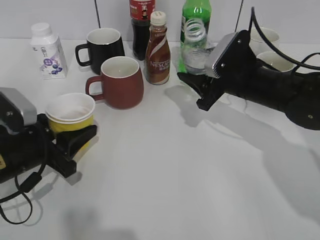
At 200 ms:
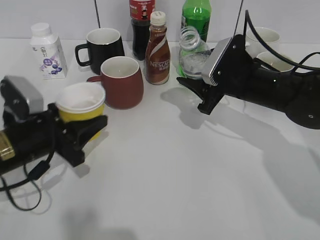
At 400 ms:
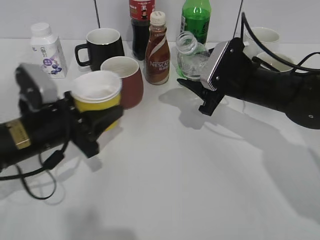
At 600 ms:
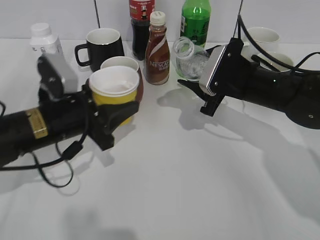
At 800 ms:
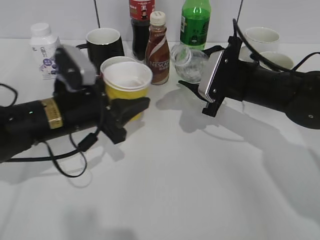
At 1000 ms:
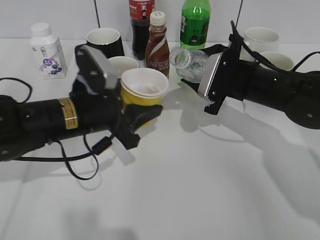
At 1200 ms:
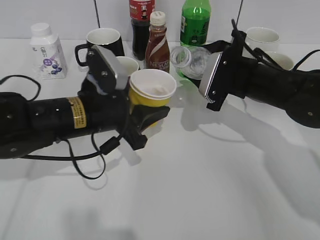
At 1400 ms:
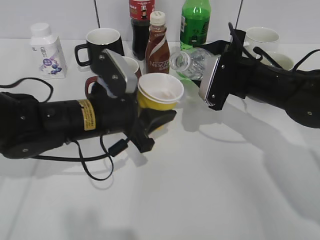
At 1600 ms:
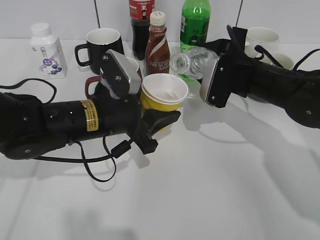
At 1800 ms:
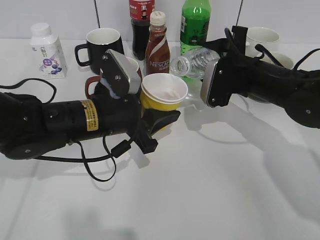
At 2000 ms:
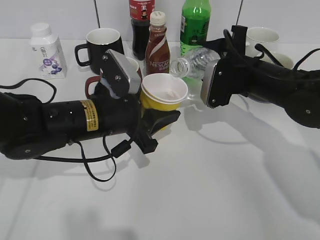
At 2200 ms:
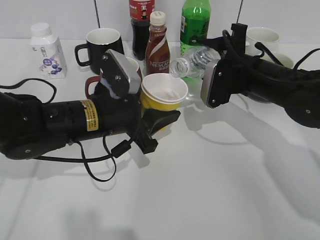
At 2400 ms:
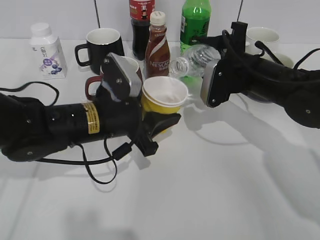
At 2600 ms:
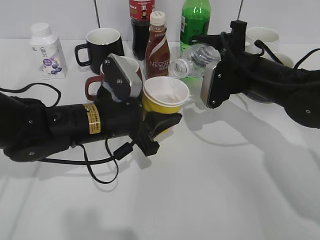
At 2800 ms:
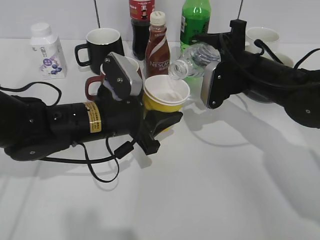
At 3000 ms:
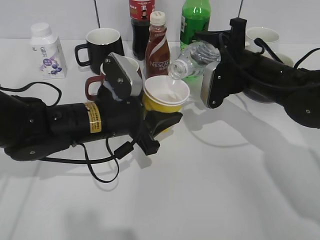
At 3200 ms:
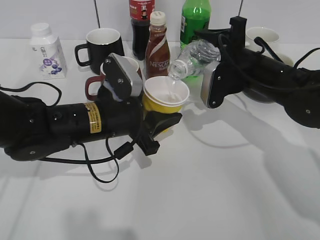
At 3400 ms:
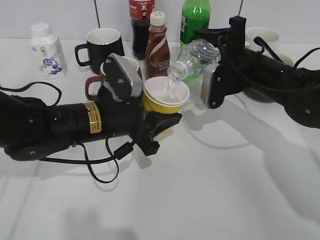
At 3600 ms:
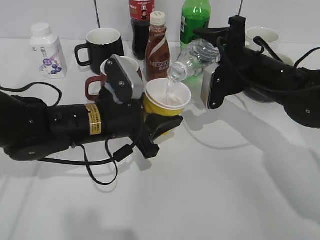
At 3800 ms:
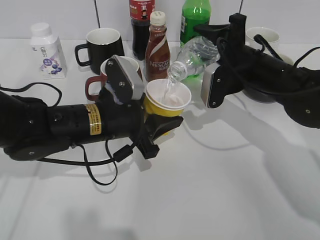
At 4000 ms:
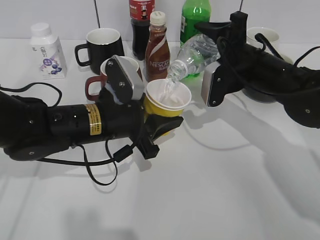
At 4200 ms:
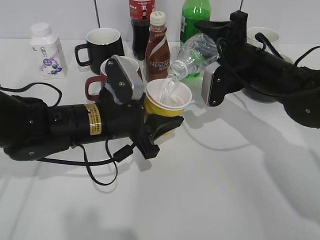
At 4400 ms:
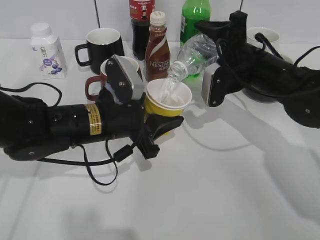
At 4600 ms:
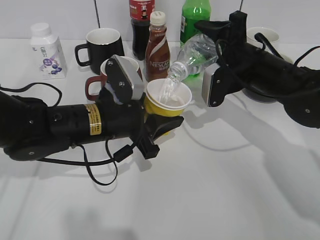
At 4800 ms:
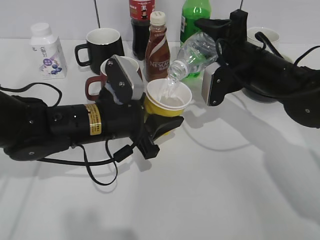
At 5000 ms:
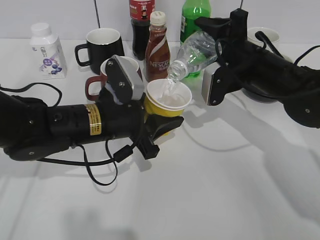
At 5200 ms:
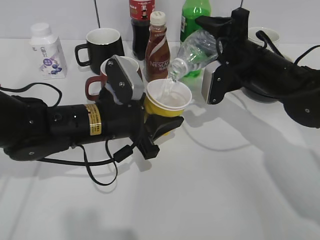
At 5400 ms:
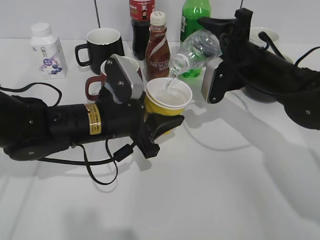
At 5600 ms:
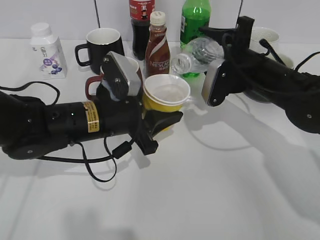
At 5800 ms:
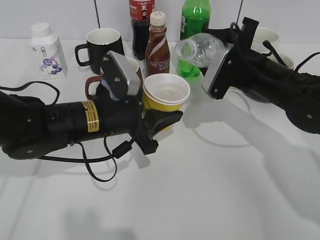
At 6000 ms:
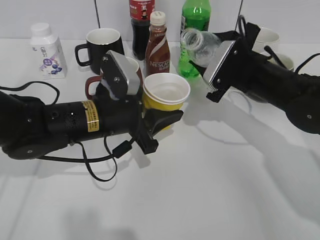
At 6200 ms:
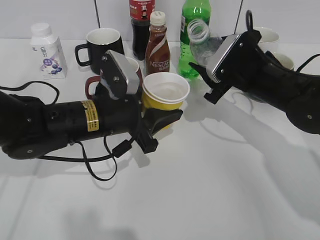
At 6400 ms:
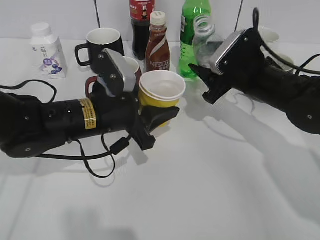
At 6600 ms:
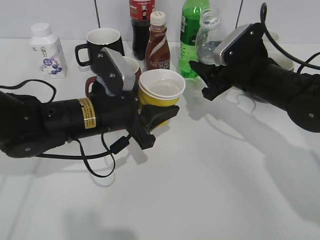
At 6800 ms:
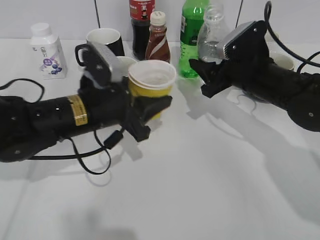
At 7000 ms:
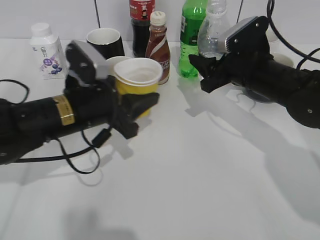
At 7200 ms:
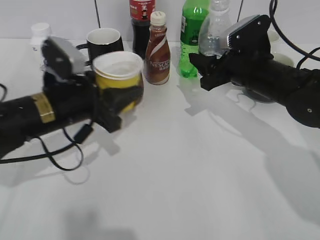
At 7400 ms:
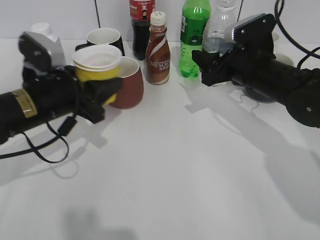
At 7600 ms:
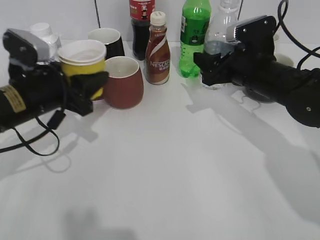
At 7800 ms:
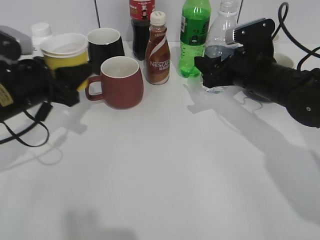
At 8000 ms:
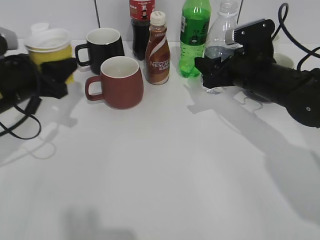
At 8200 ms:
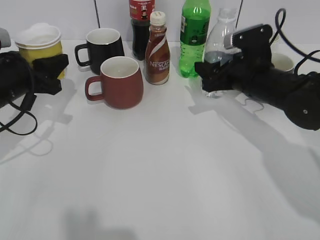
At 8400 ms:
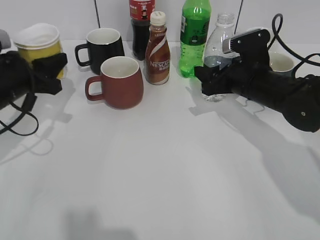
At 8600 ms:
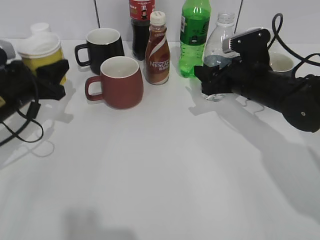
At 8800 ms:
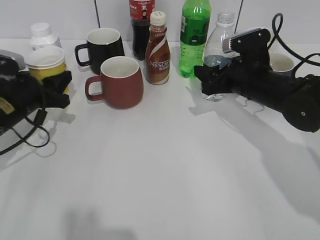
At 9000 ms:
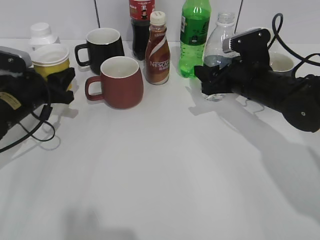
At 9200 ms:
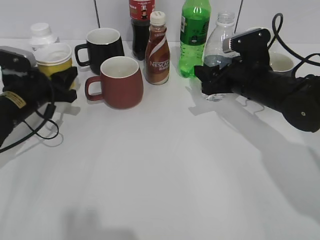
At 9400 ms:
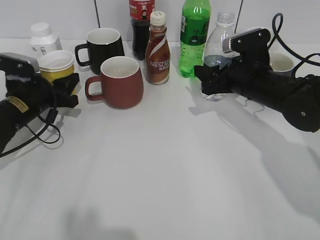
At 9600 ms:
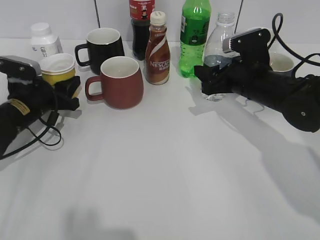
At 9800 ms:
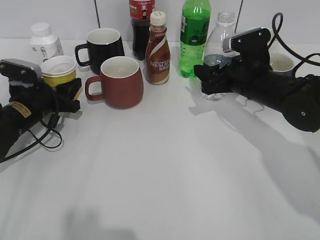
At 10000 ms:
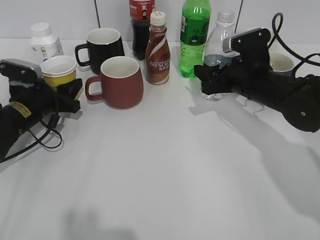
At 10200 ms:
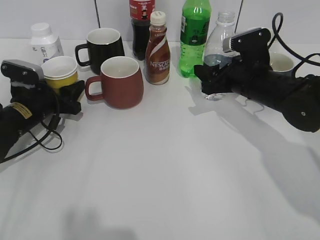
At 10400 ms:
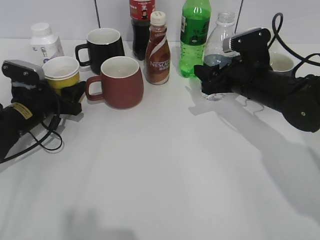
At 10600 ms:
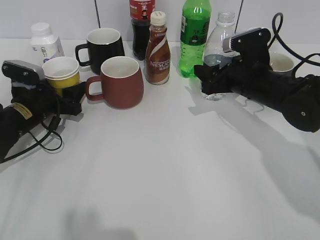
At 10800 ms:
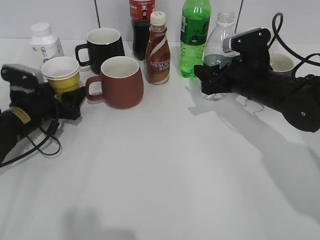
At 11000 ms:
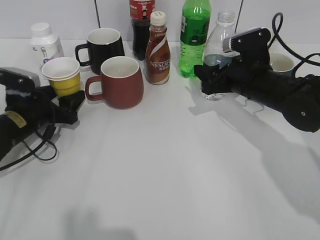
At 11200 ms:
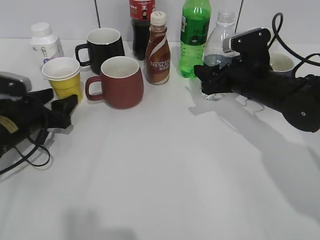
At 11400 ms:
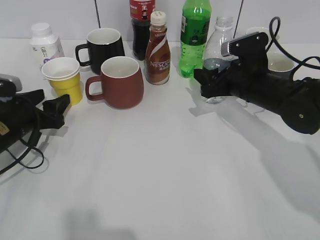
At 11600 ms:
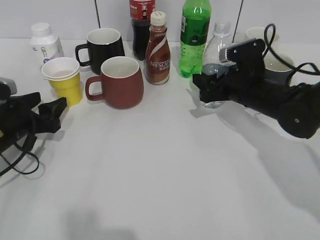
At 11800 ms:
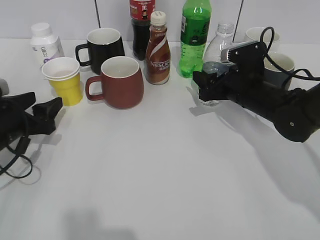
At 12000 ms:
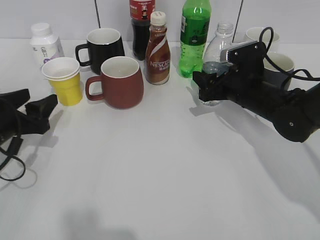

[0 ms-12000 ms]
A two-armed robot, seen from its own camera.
Step, 0 ms to 6400 ms: Pour the water from bottle to cup with right gripper.
Step, 6600 ms to 11200 ms: Place the yellow paper cup on the table with left gripper.
0 ms to 1600 ms: The left gripper heads to the right, covering approximately 10 cm.
1600 ms to 3000 ms: The grippers move only a little.
3000 ms to 4400 ms: The grippers move only a little.
6000 ms to 7600 ms: The left gripper travels to the left by approximately 10 cm.
7600 ms to 9000 ms: The left gripper moves forward, downward and to the left, approximately 10 cm.
9000 ms to 10400 ms: The left gripper opens.
10400 ms to 12000 ms: The left gripper shifts some 10 cm backward.

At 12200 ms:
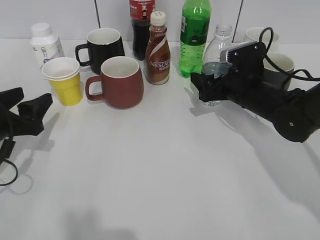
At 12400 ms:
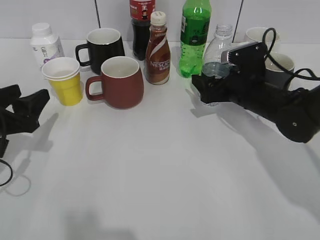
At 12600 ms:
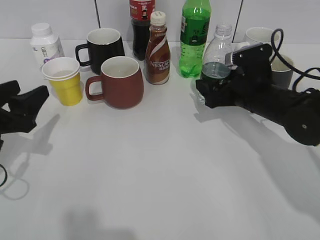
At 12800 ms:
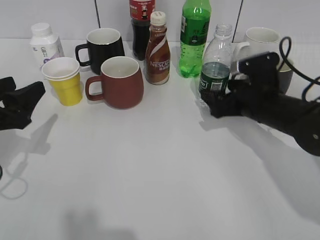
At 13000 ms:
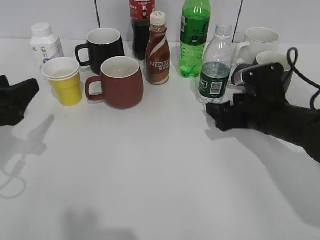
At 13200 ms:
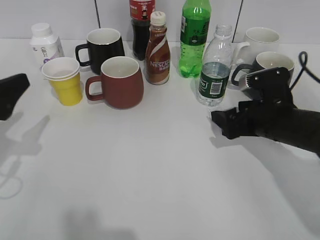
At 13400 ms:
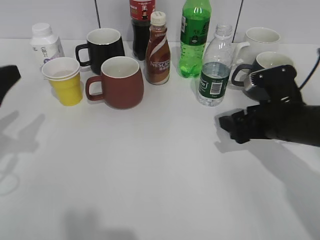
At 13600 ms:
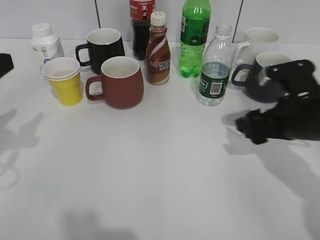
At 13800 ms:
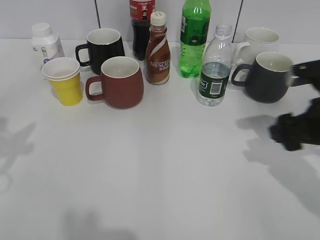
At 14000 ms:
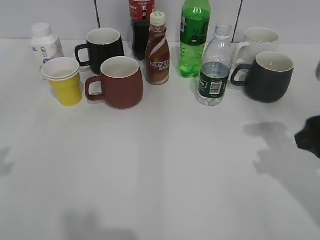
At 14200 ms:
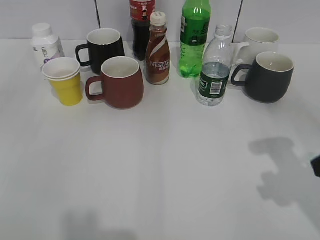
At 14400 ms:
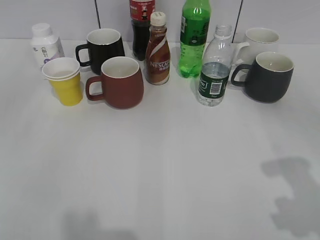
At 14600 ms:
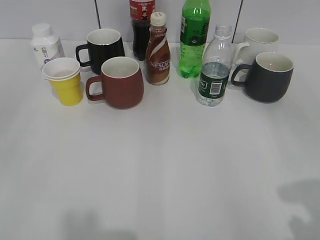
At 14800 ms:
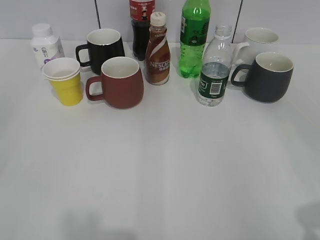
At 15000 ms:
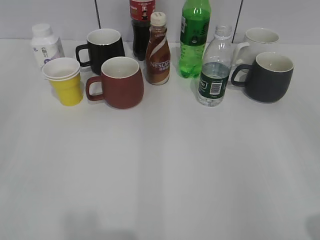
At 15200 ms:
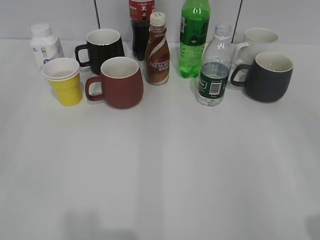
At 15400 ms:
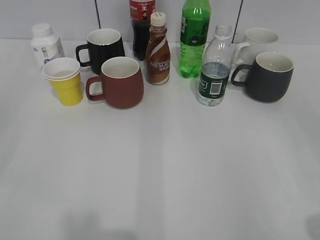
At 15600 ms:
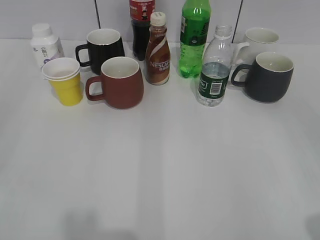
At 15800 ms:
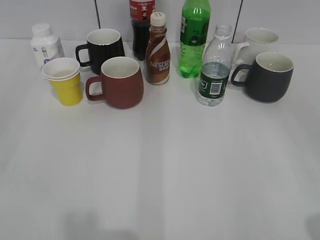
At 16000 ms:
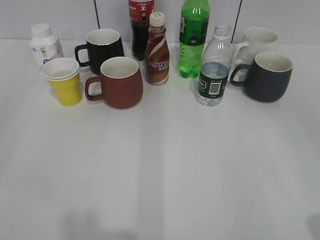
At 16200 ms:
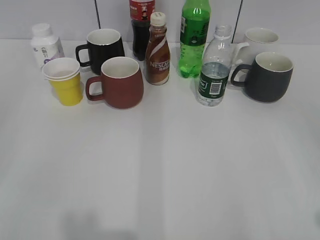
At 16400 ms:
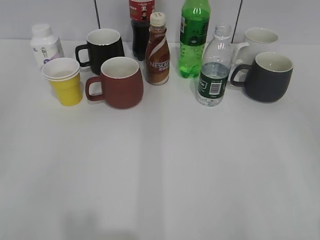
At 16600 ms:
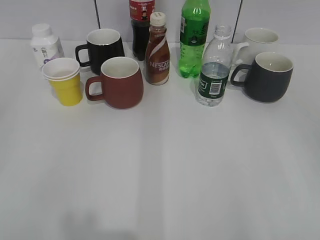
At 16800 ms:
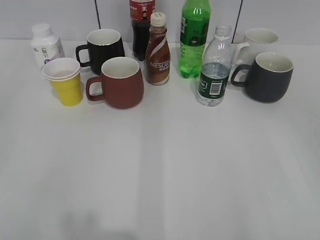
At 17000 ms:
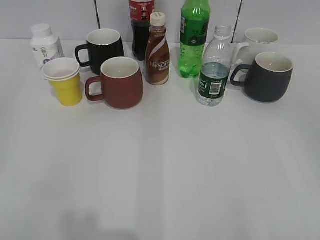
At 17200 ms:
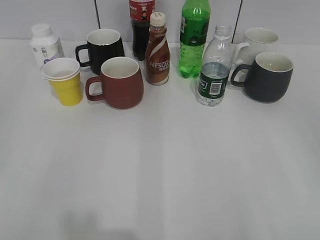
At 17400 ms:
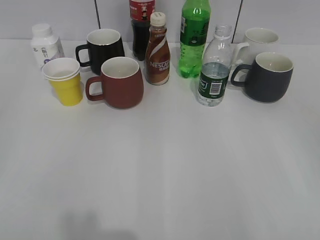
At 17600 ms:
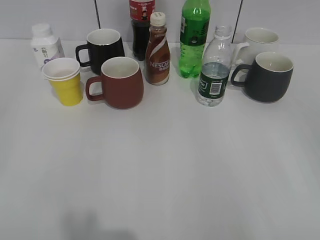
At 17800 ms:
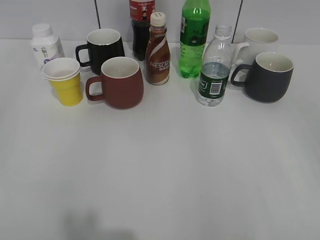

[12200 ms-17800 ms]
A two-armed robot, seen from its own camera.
12200 ms to 13600 ms: The right gripper goes some 10 cm backward. The left gripper travels upward by approximately 15 cm.
13600 ms to 15000 ms: The left gripper travels backward by some 20 cm. The right gripper heads backward and upward, covering some 25 cm.

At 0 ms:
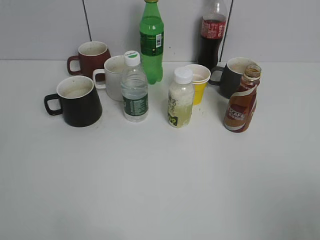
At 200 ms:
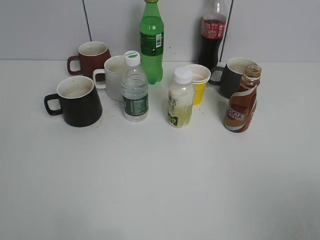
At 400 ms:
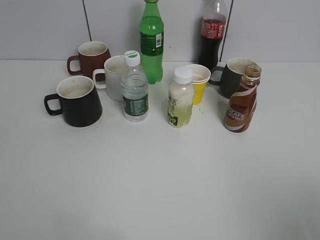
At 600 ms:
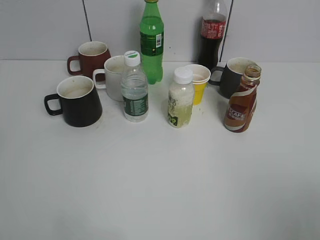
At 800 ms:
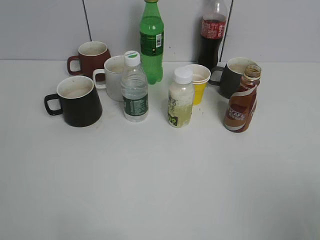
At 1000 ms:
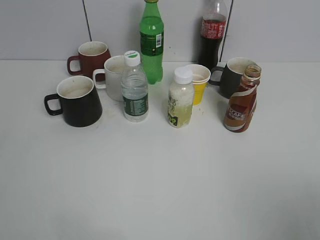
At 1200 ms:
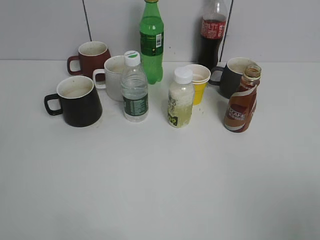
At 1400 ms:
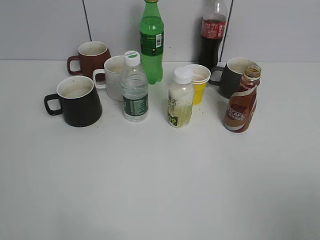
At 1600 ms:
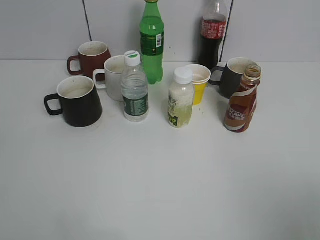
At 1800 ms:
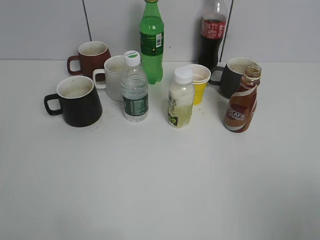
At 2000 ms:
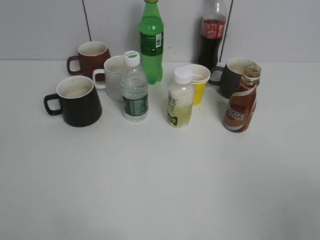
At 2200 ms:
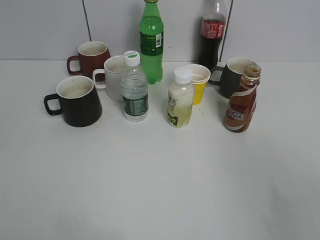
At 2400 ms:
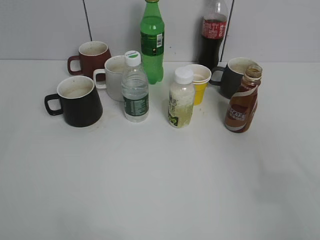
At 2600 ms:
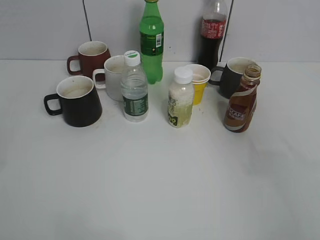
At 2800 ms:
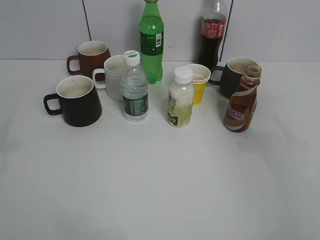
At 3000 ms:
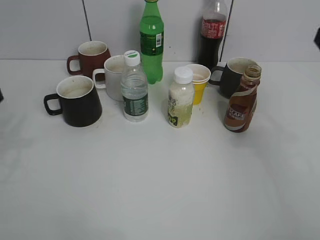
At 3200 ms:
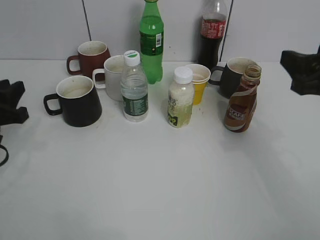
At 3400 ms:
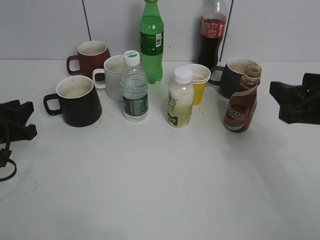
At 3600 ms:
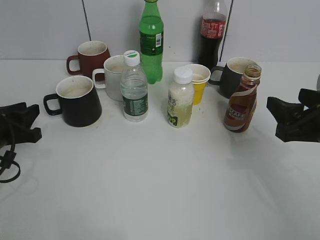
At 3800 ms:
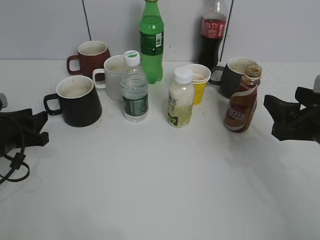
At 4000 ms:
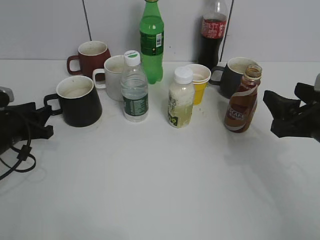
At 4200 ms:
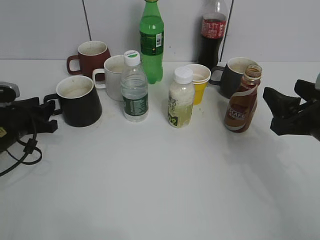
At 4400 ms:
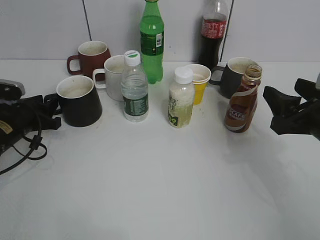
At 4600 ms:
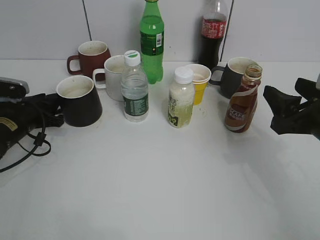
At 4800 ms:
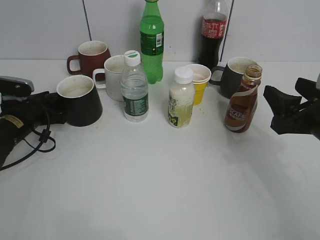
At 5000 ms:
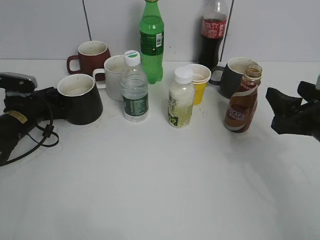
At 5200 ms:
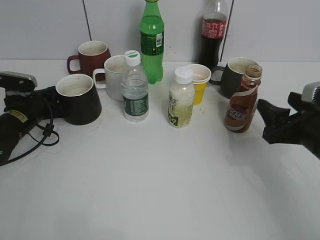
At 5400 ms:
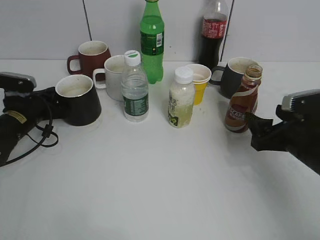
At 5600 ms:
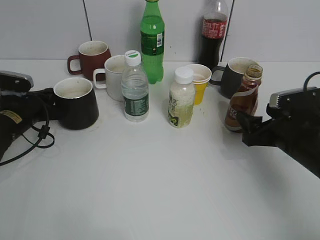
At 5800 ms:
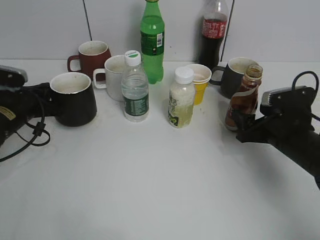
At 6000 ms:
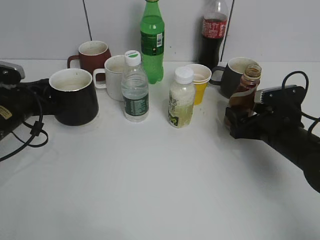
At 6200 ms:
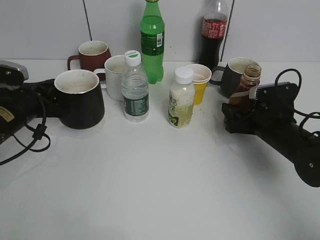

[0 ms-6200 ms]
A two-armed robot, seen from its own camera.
Step, 1800 ms to 4800 ms: Grasp the black cup with left gripper.
Step, 5000 ms to 5400 ms: Grasp the bottle with coffee with right gripper.
1600 ms to 3200 ms: The left gripper shifts approximately 30 cm forward and downward. The right gripper moves forward, about 25 cm.
3200 ms to 4600 ms: The left gripper heads downward and forward, covering about 15 cm; the right gripper is displaced downward by about 10 cm.
4600 ms to 6200 ms: The left gripper changes place by about 5 cm, and closes up. Meanwhile the right gripper heads downward and forward, covering roughly 15 cm, and opens up.
